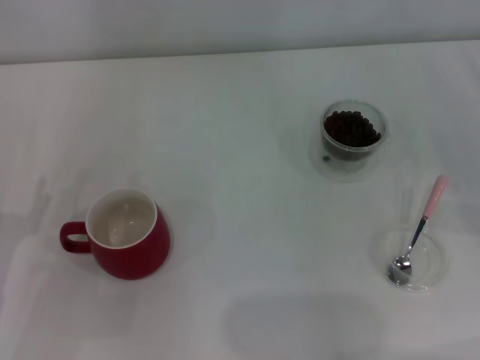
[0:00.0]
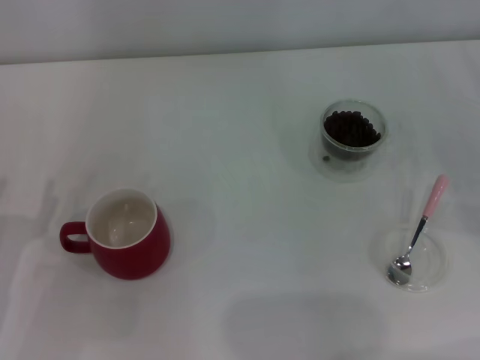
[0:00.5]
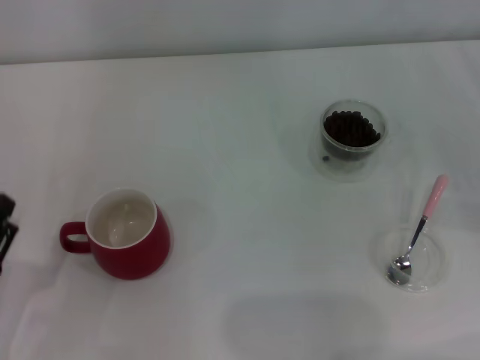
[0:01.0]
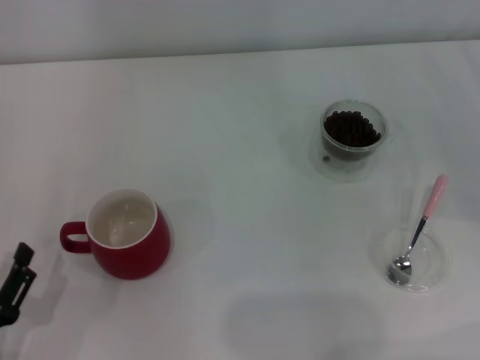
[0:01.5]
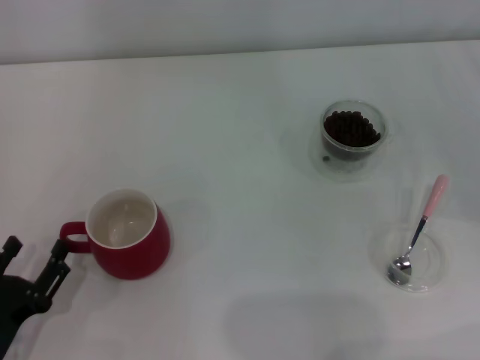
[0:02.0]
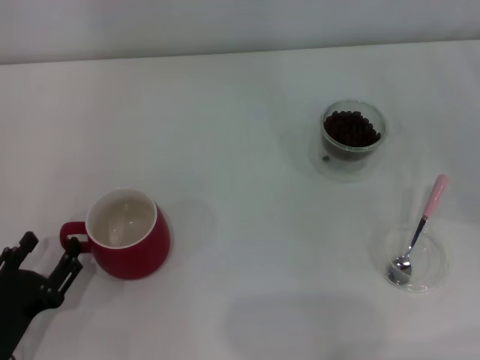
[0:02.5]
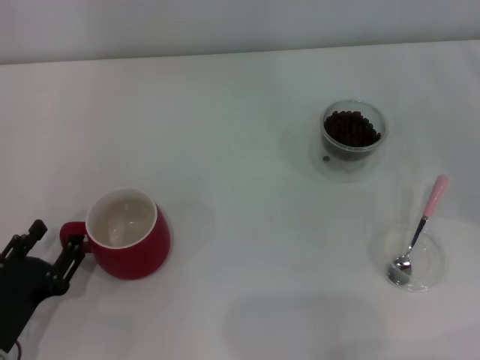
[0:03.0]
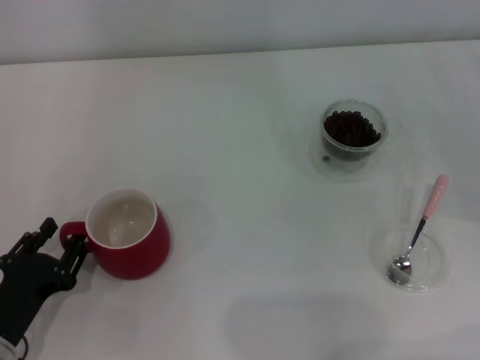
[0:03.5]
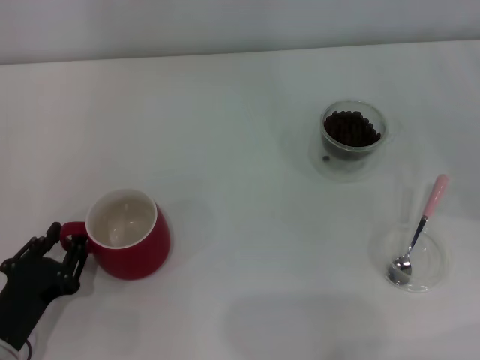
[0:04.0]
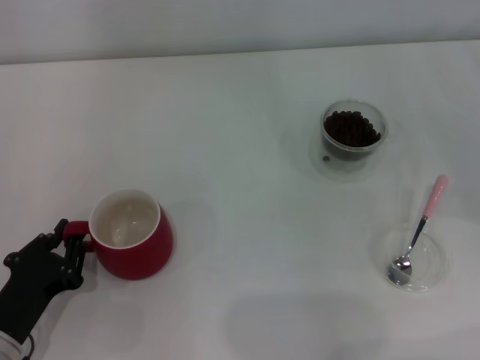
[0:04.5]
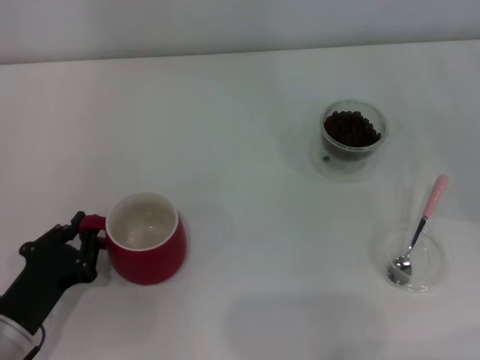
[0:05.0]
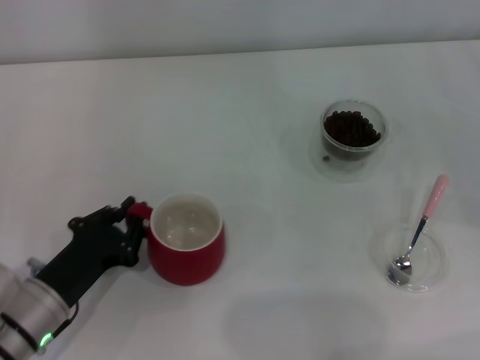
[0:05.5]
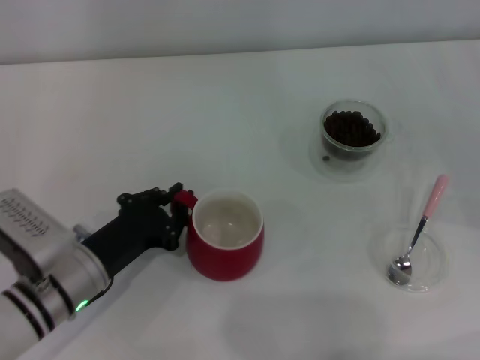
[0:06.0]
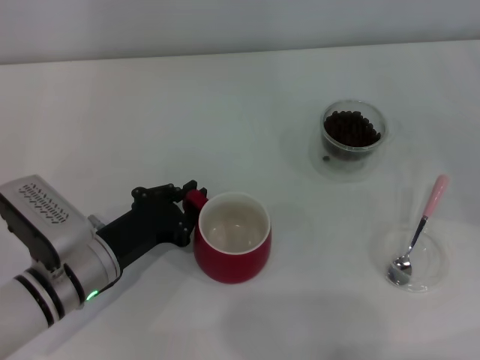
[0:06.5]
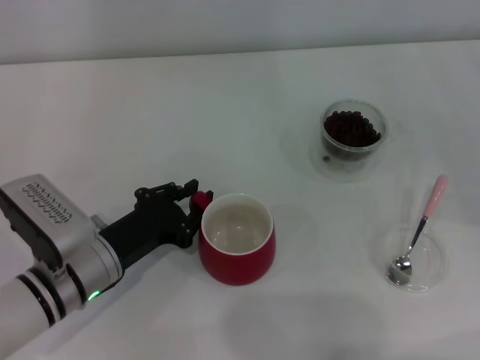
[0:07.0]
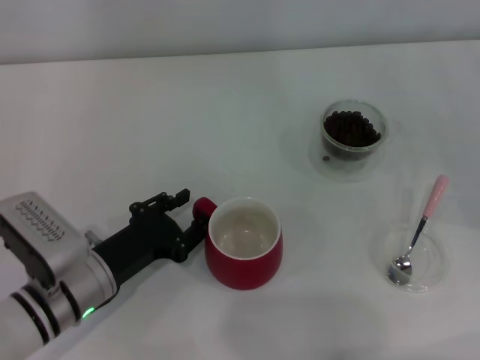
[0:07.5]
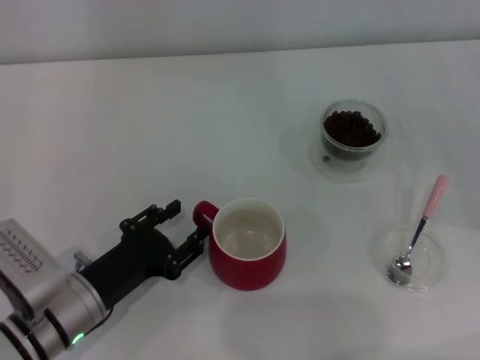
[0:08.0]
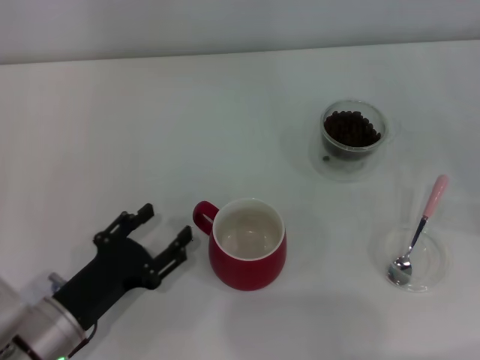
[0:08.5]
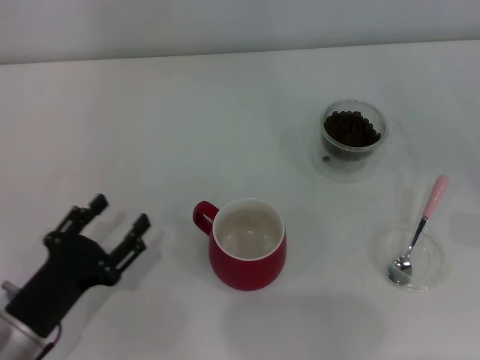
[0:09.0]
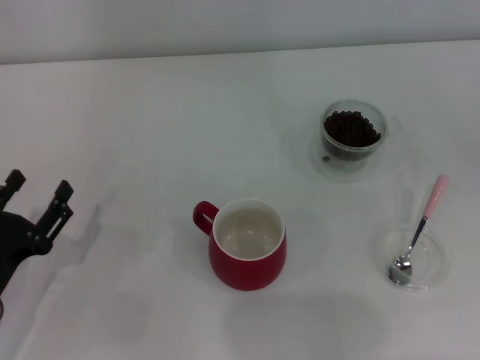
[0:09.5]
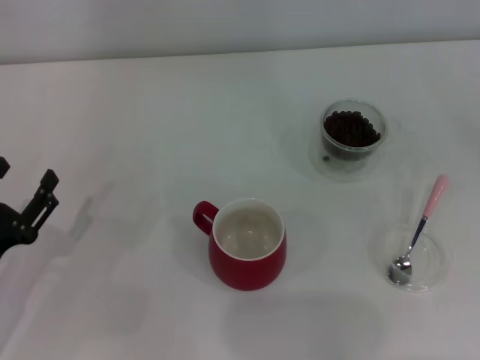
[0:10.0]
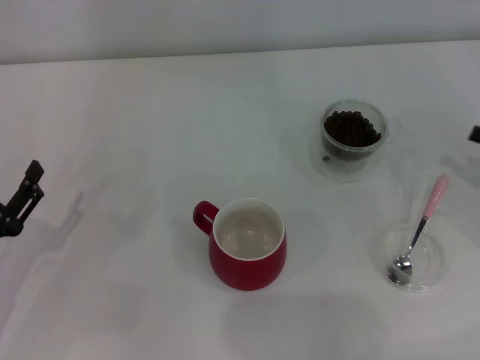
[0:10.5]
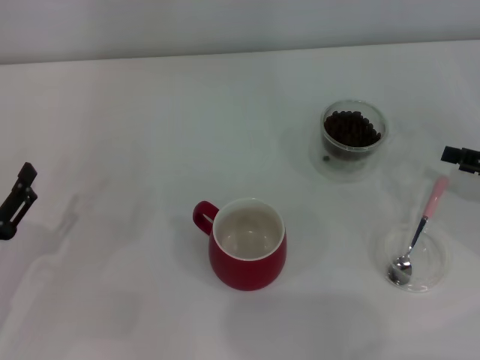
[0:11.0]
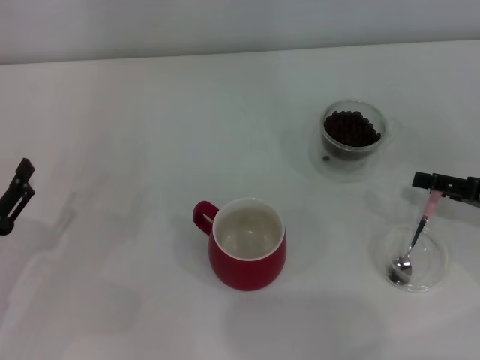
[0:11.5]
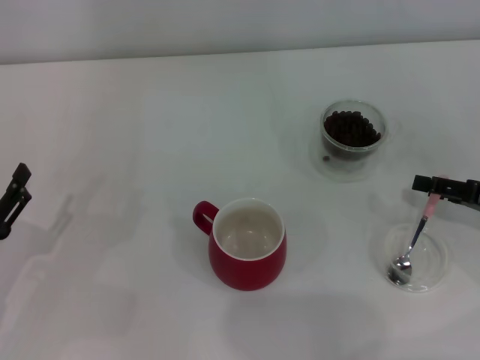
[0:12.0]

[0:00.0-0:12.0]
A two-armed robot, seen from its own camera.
Task of the whole recording: Use a pink spoon to take out the coffee beans from the glass and pour them into the red cup.
Step, 0:00.0 to 0:08.0: Move the cup to the center of view with the left gripper.
0:00.0 to 0:02.0: The left gripper shifts approximately 5 cm backward.
0:02.0 to 0:04.0: The left gripper closes up.
0:04.0 to 0:06.0: The left gripper shifts some 10 cm forward and to the right, and closes up.
0:06.0 to 0:08.0: The left gripper opens up.
0:08.0 to 0:10.0: The left gripper travels to the left by some 10 cm. Meanwhile the right gripper goes roughly 10 cm to the right and backward.
0:10.0 to 0:12.0: The right gripper shifts some 10 cm to the left.

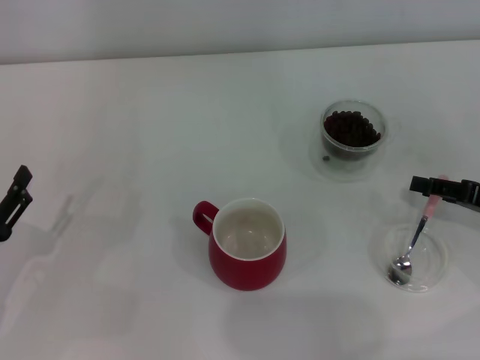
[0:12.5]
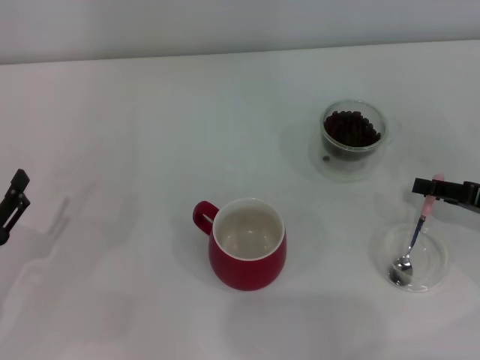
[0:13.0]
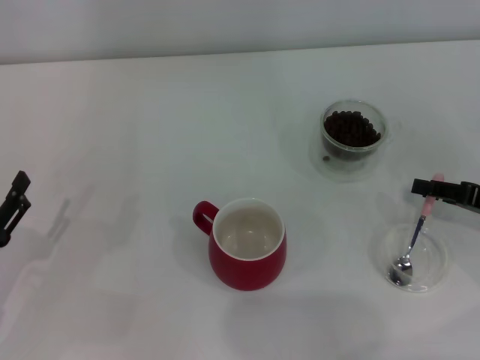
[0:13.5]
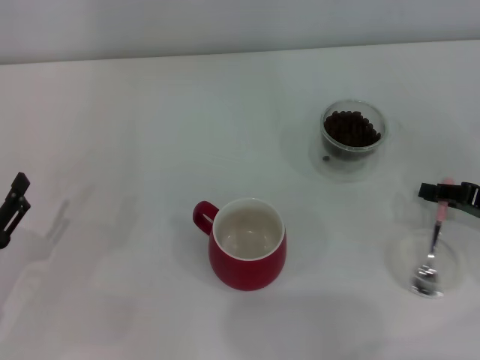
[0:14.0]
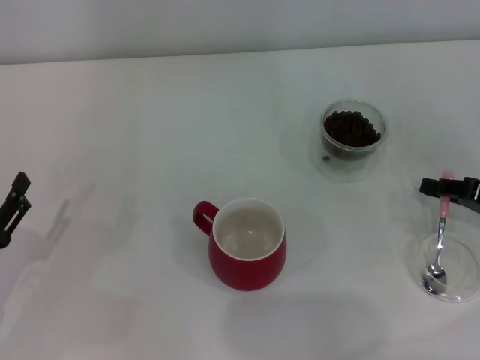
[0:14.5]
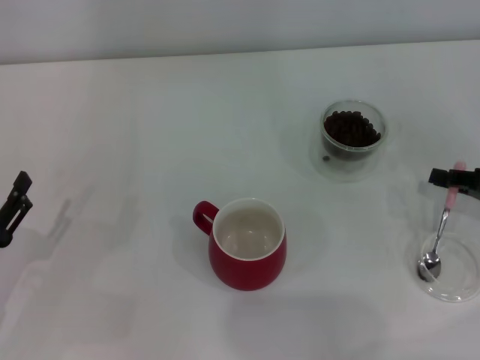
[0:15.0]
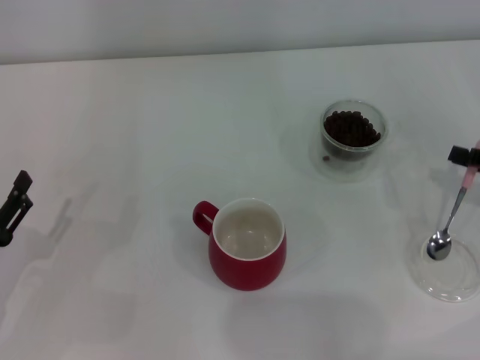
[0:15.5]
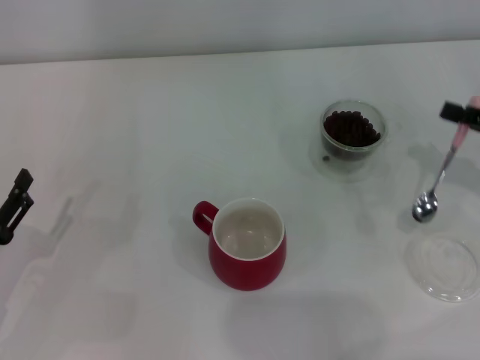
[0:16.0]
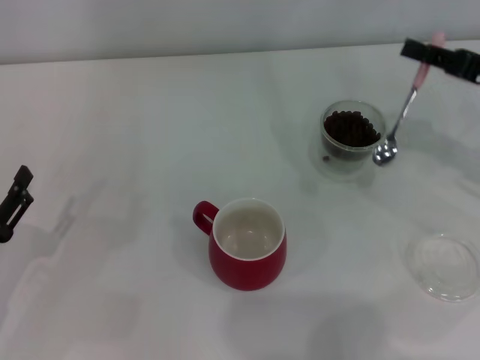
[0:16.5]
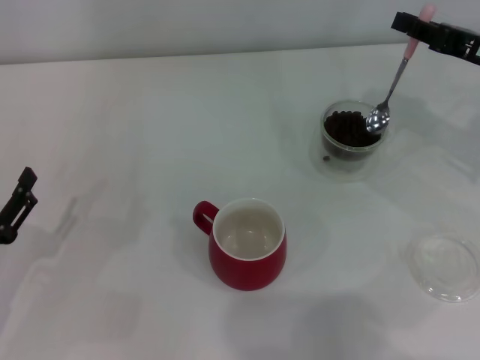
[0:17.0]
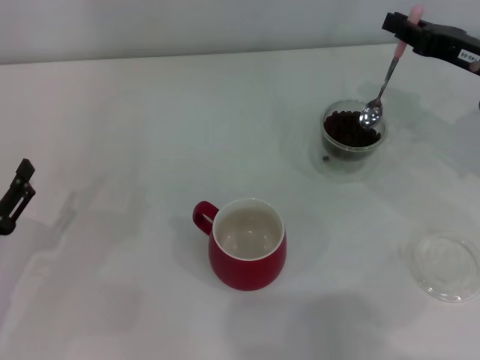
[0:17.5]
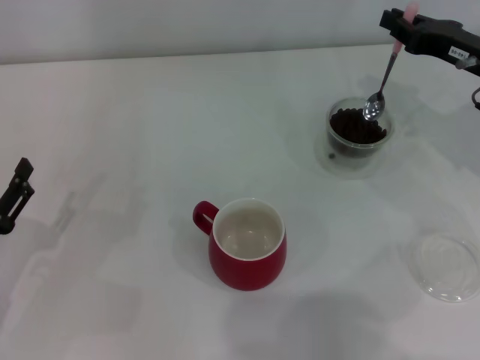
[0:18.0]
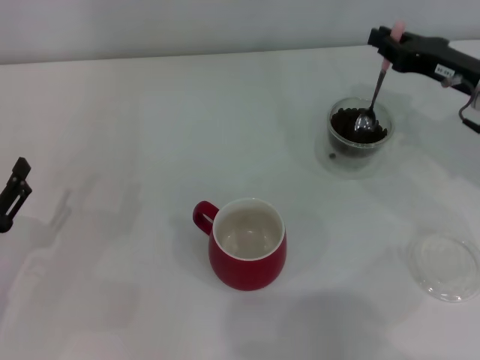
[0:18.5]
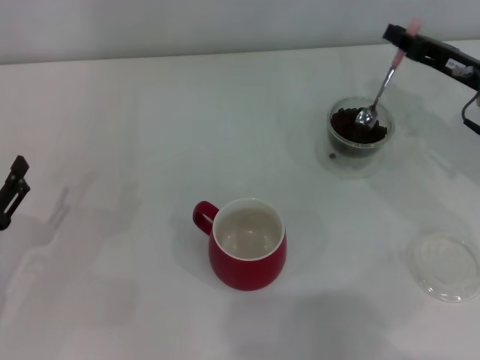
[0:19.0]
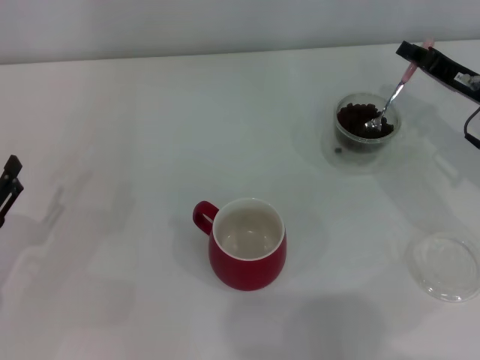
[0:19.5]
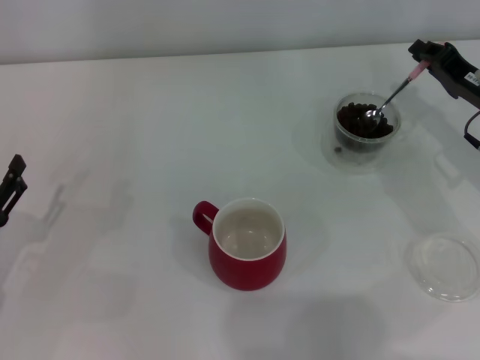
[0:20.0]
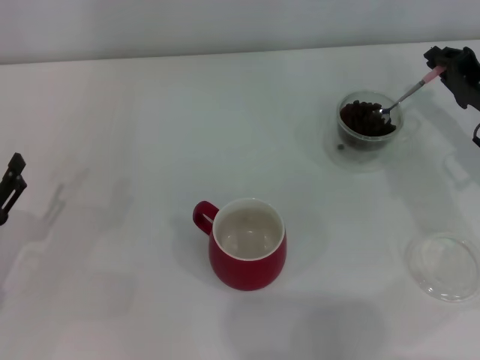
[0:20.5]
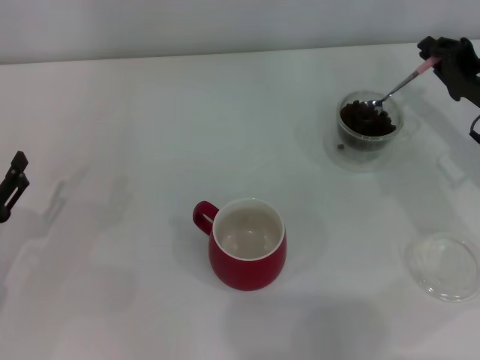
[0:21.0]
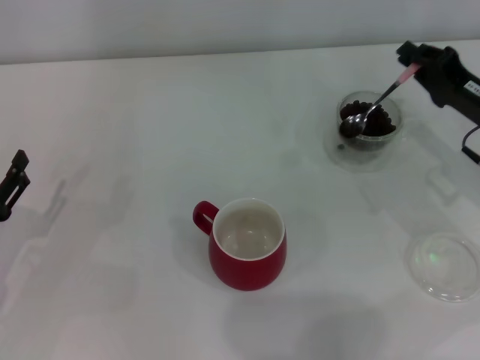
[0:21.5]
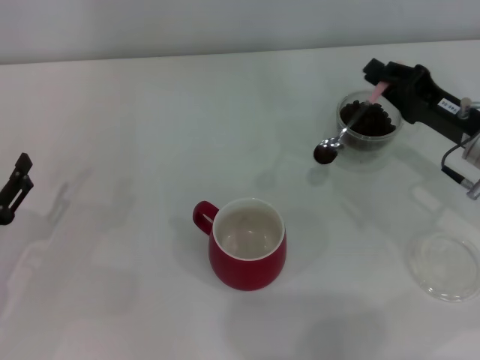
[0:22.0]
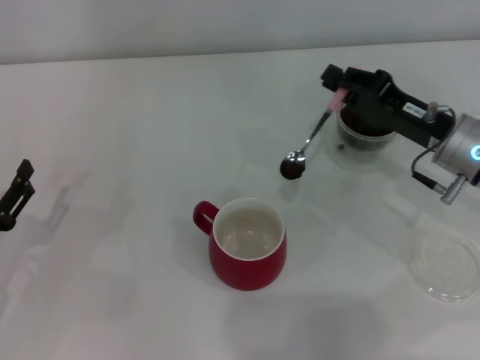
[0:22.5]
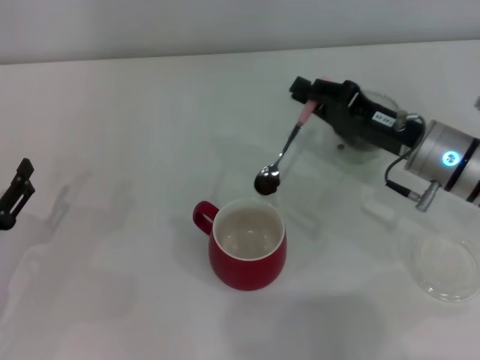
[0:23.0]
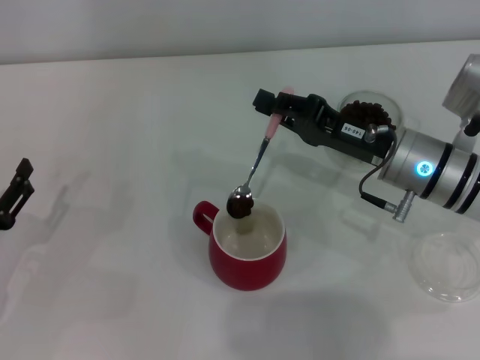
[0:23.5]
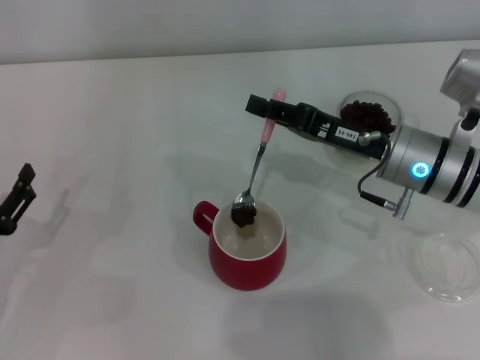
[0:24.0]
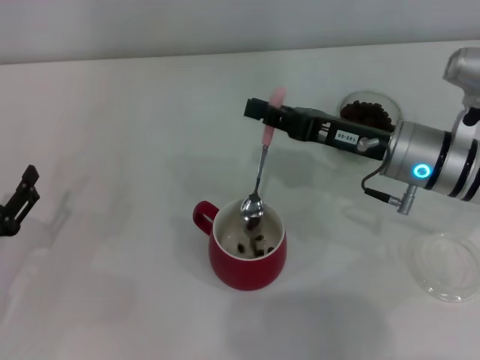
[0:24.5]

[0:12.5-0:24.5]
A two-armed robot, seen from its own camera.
Task of the whole recording: Use a pink spoon to take out the coffee beans from the glass and pour them into the red cup.
Step, 0:12.5 to 0:15.5: Pick up the spoon with the right gripper.
0:12.5 to 0:14.5: The right gripper closes its fingers.
0:14.5 to 0:16.5: The right gripper travels upward and forward by some 10 cm.
0:16.5 to 0:18.5: The right gripper shifts by approximately 5 cm.
0:18.5 to 0:20.5: The right gripper shifts by roughly 5 cm.
0:20.5 to 0:22.5: The right gripper heads to the left, covering roughly 5 cm.
0:22.5 to 0:24.5: The right gripper heads to the left, covering about 5 cm.

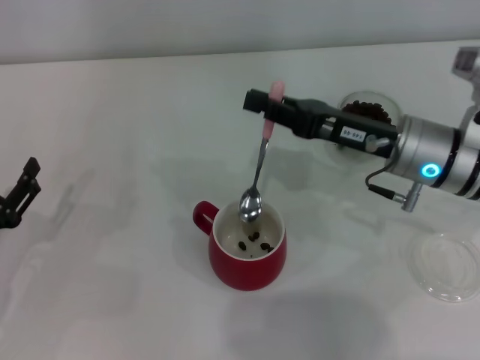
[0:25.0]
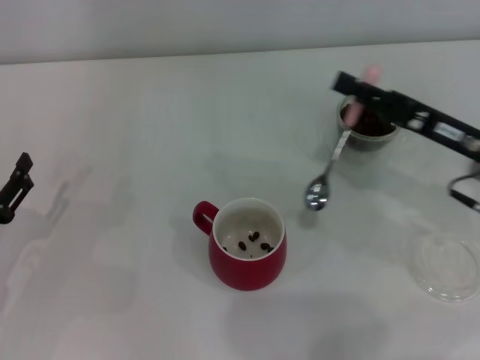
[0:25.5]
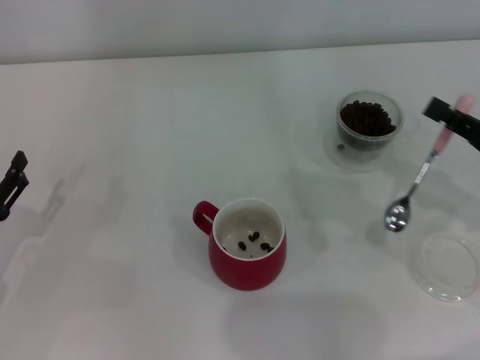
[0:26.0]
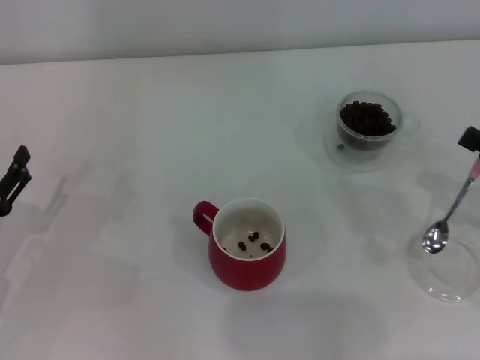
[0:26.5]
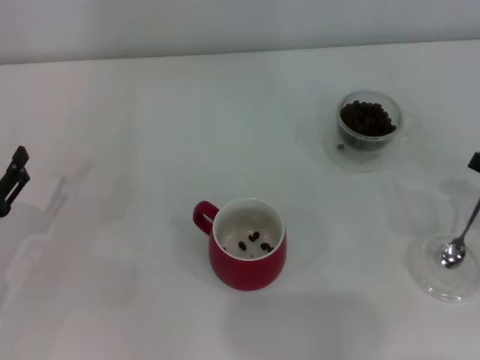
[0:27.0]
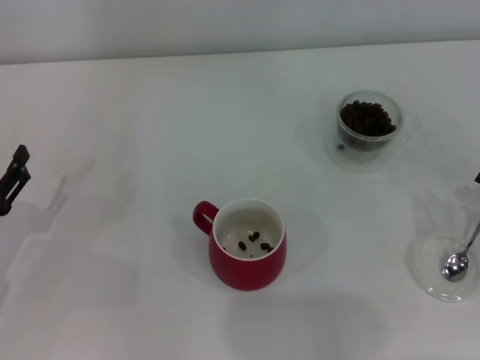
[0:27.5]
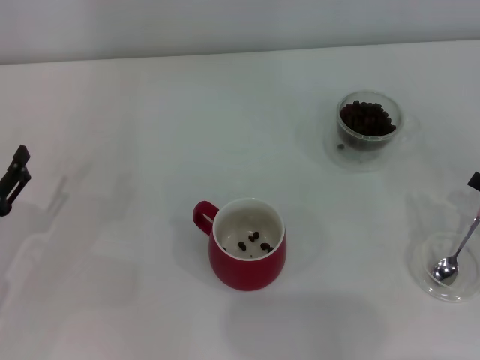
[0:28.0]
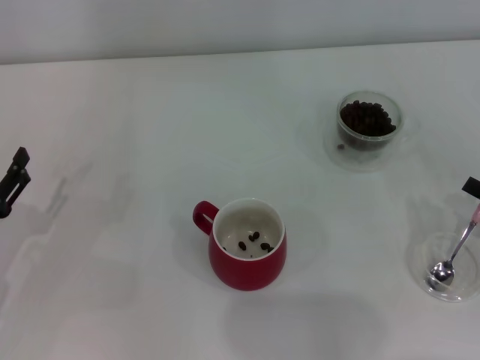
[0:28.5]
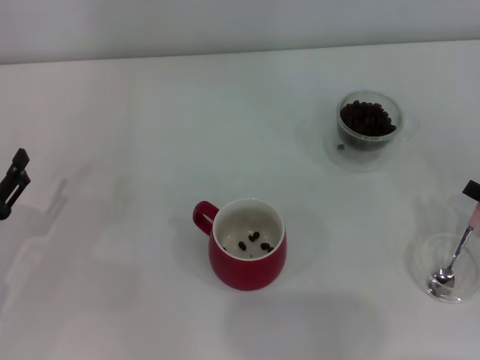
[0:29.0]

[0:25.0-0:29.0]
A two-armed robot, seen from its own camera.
Task of the whole recording: Use a pink spoon to take out the coffee beans from the glass and pour them into the red cup.
0:25.0 to 0:27.0: The right gripper is displaced to the right and backward by roughly 20 cm.
0:27.0 to 0:29.0: There are only small adjustments of the grippers.
